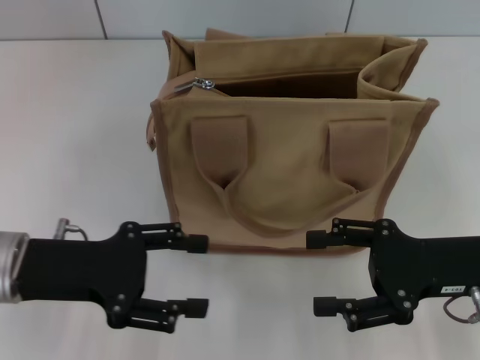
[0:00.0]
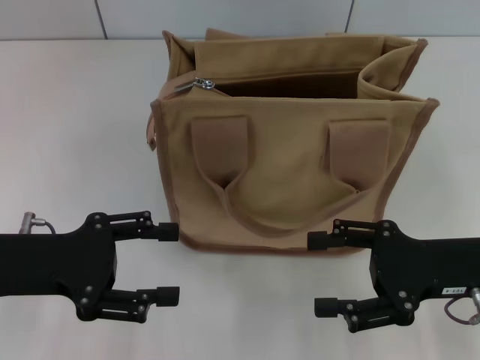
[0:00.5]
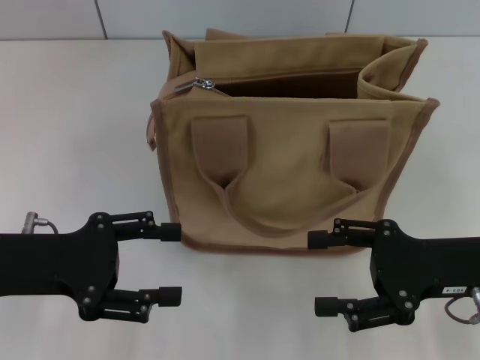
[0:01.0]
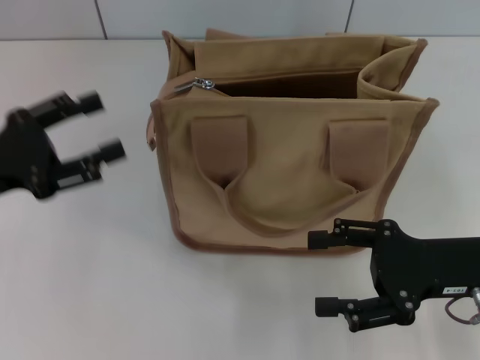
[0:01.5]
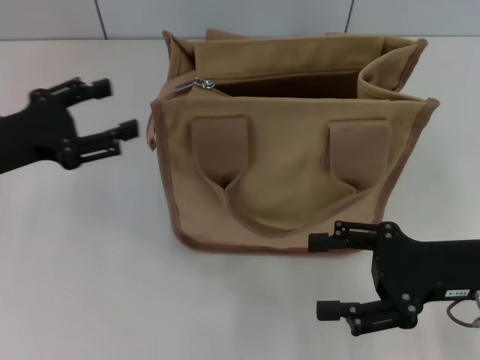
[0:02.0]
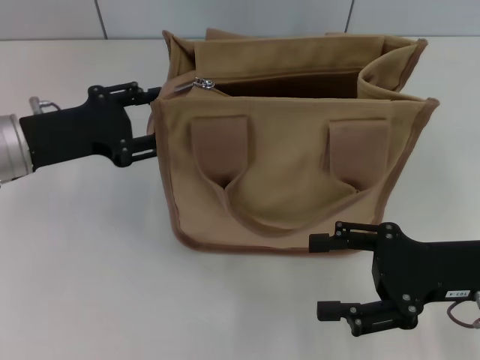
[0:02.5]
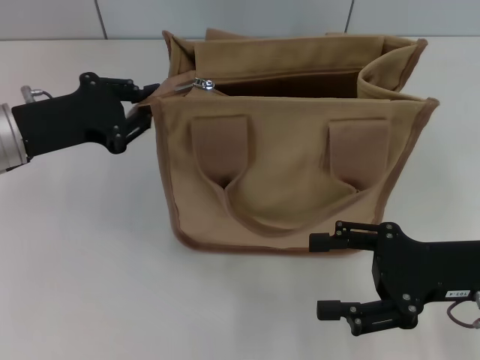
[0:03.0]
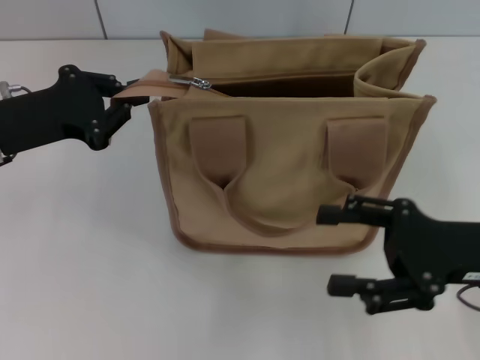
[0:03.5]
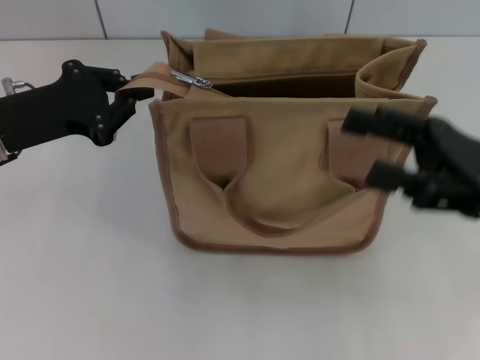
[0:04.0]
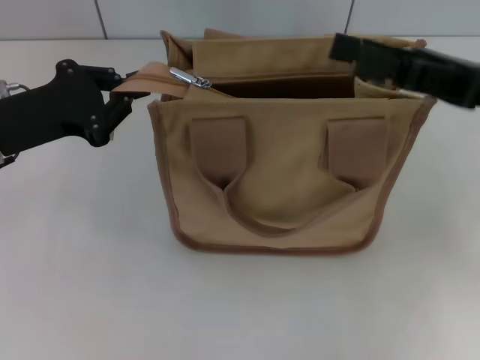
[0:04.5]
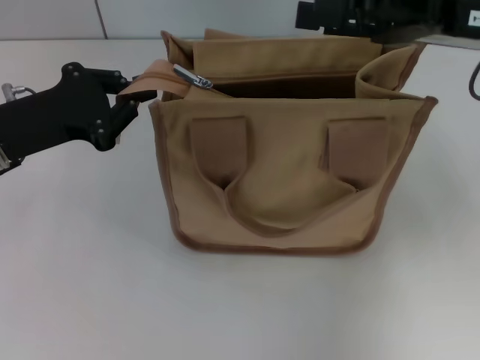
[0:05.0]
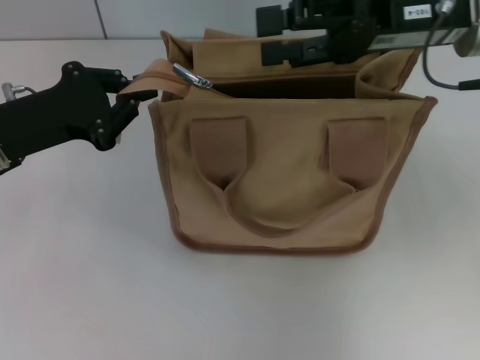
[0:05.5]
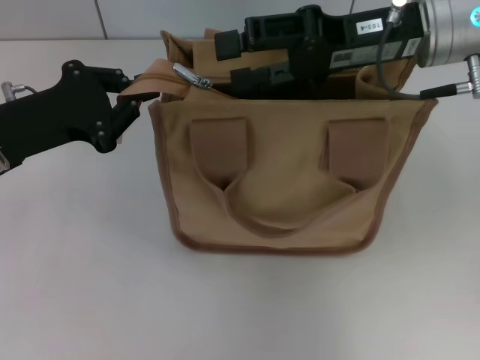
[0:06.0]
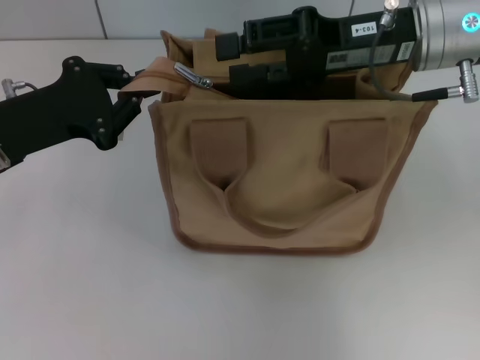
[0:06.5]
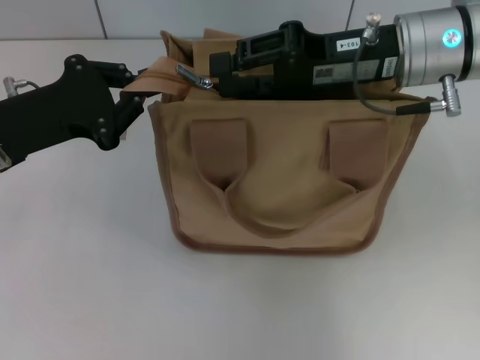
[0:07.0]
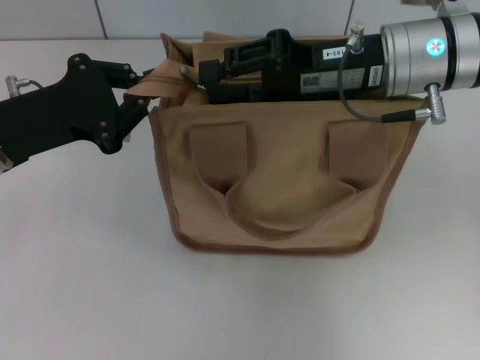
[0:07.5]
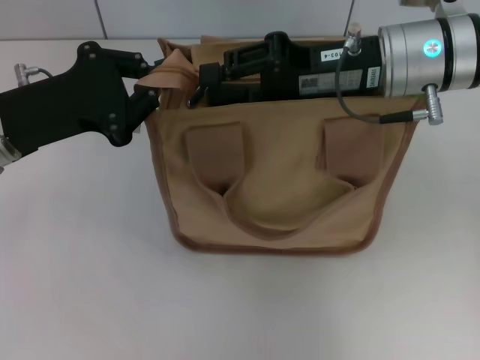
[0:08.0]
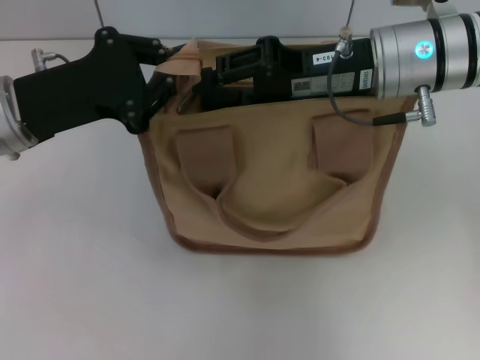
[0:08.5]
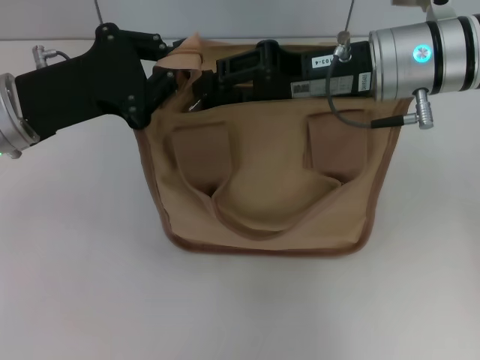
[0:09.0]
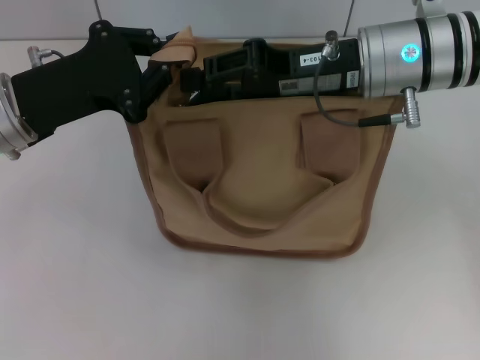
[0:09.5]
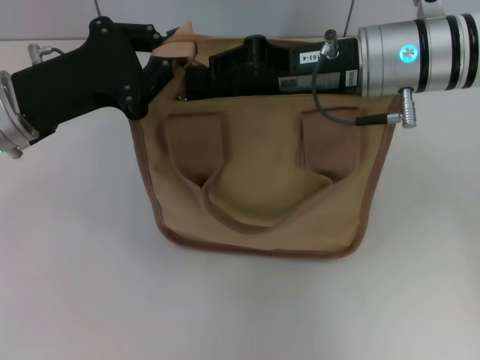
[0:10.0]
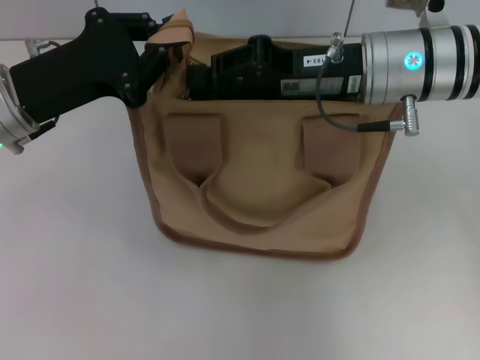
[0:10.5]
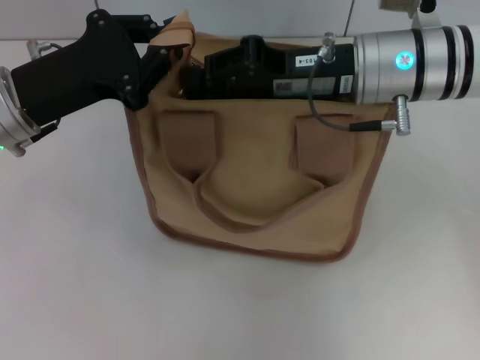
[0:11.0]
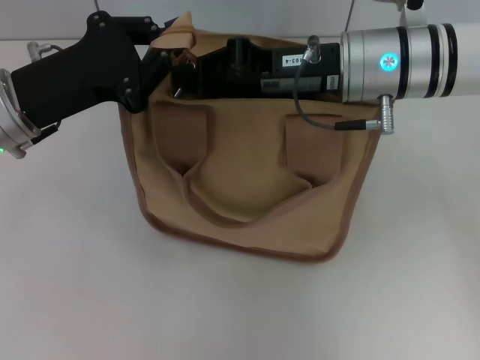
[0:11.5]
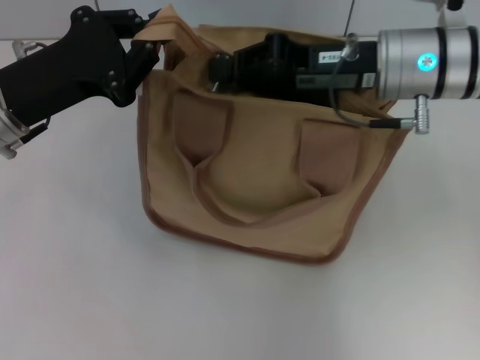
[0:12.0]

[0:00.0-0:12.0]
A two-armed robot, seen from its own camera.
0.0 to 2.0 s: The left gripper heads forward and to the left, covering approximately 10 cm.
2.0 to 4.0 s: The right gripper moves upward, approximately 5 cm, while the left gripper closes its fingers.
4.0 to 6.0 s: The right gripper is displaced forward, to the left and upward by about 15 cm.
6.0 to 8.0 s: The right gripper closes.
8.0 to 12.0 s: The grippers stay close to where they were, moving slightly.

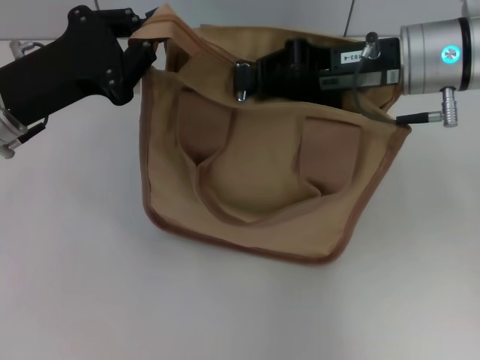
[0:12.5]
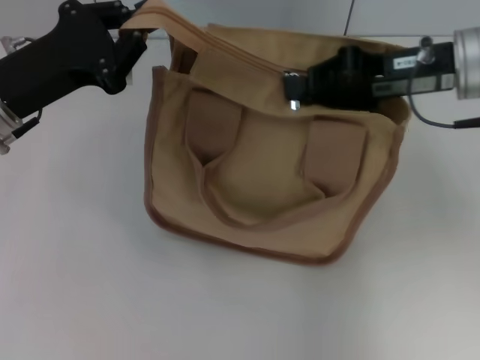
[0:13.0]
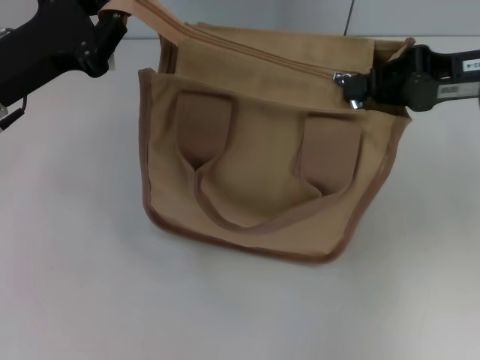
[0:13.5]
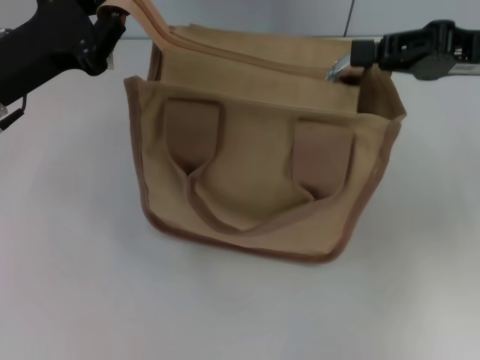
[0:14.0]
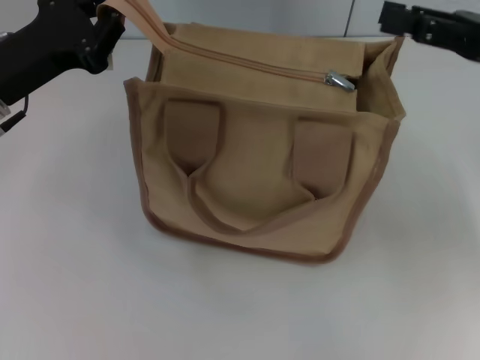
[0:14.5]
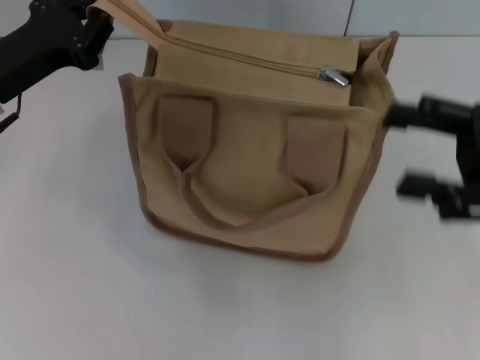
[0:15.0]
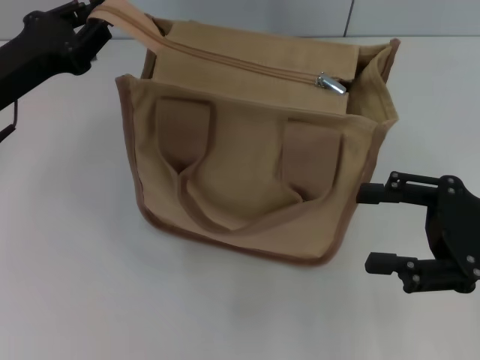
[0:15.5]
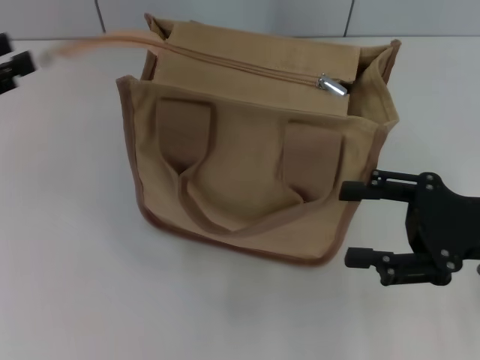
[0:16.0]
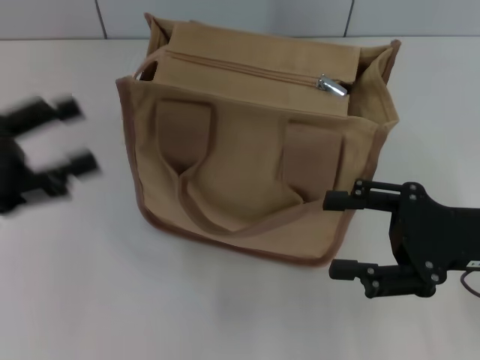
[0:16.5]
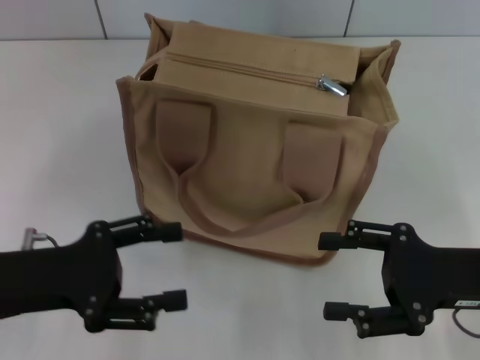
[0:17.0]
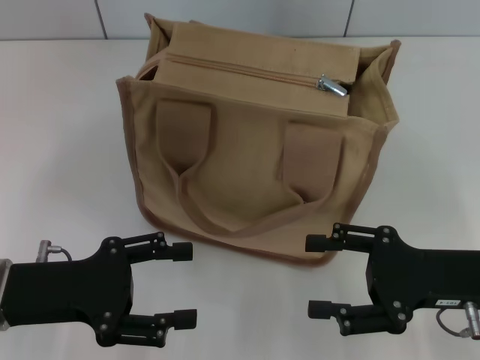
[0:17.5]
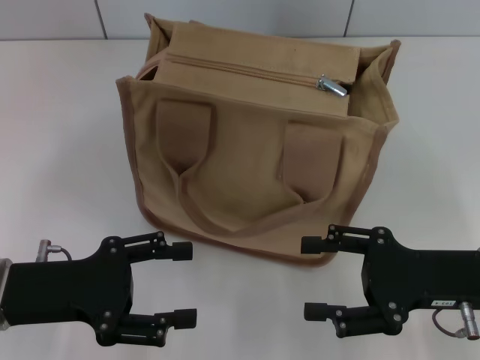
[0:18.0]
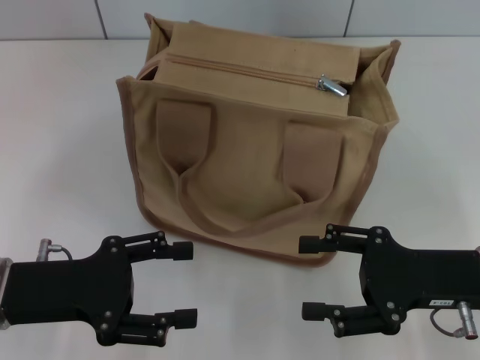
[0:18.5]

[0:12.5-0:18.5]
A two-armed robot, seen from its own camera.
Step, 14.5 to 16.0 s: Grab the zipper with your left hand.
12.5 to 14.5 s: The right gripper moves to the right, about 10 cm, and opens.
14.5 to 16.5 s: The right gripper goes some 10 cm downward and backward, and opens, while the left gripper goes some 10 cm backward and to the left, and opens up.
16.5 to 18.5 s: The left gripper moves to the right and downward, about 10 cm.

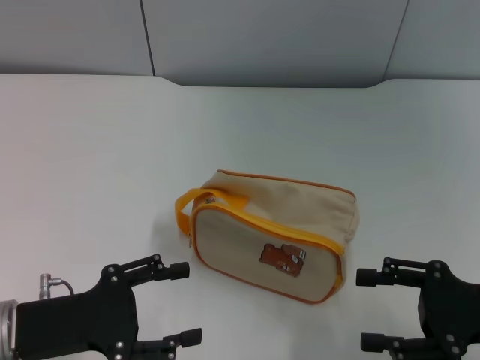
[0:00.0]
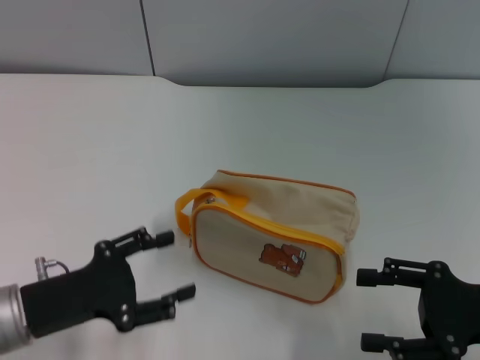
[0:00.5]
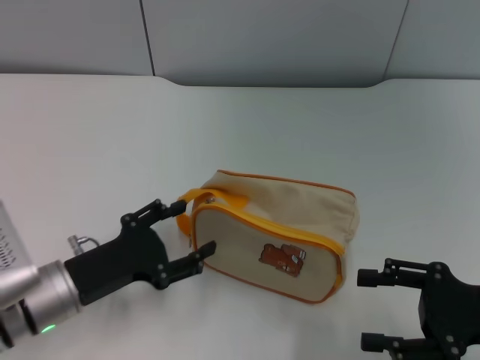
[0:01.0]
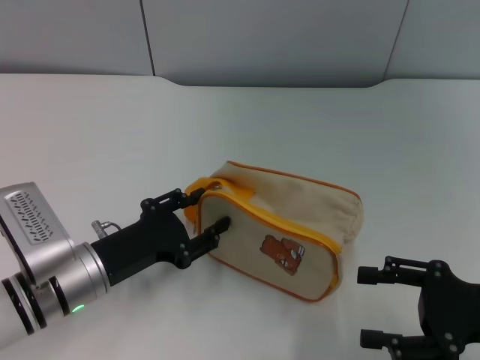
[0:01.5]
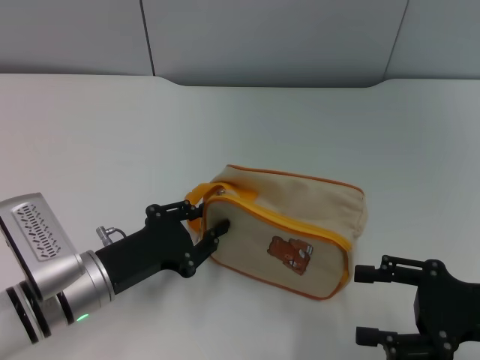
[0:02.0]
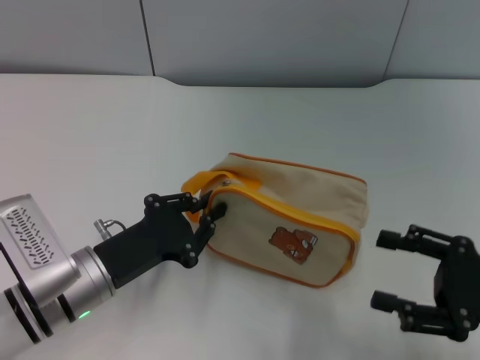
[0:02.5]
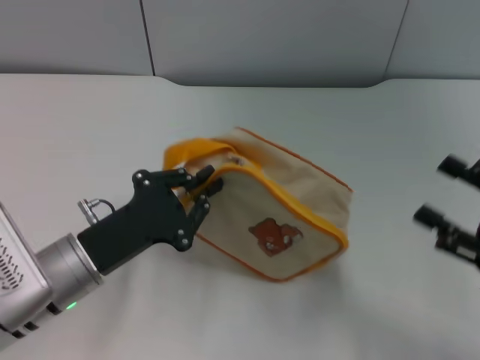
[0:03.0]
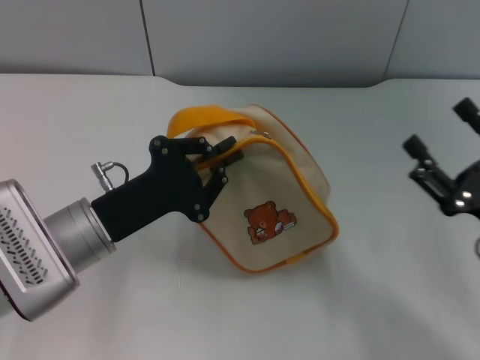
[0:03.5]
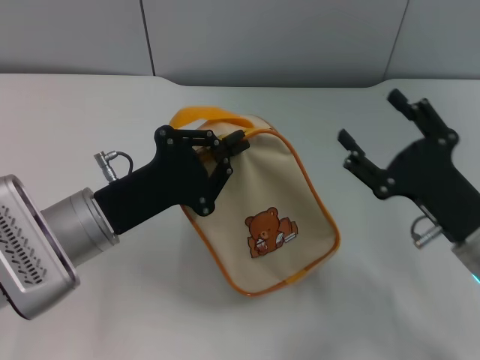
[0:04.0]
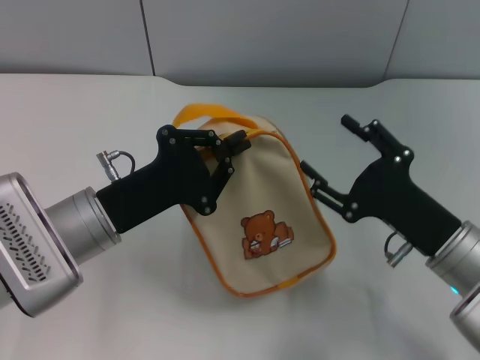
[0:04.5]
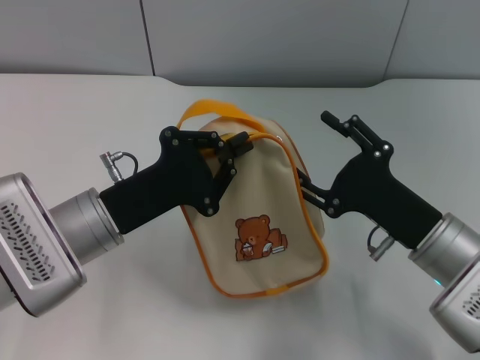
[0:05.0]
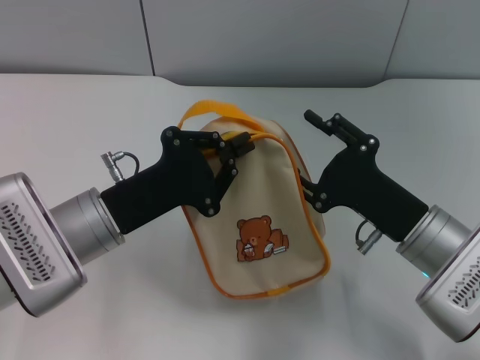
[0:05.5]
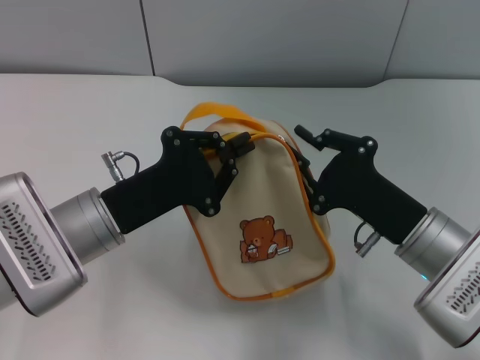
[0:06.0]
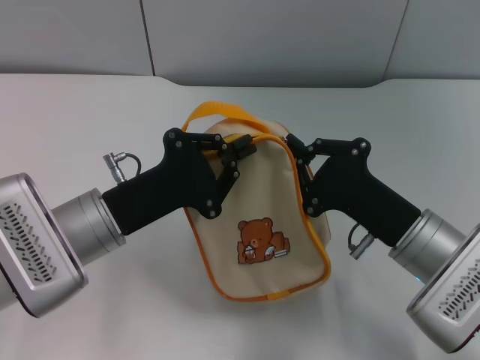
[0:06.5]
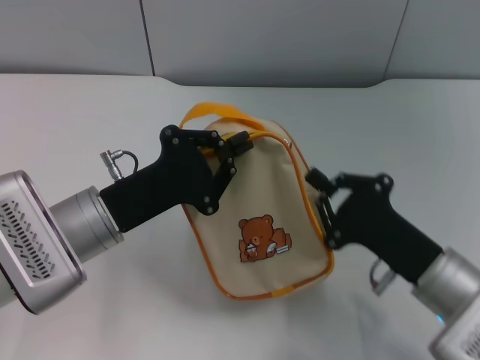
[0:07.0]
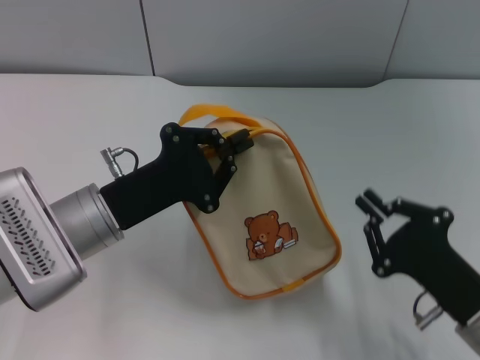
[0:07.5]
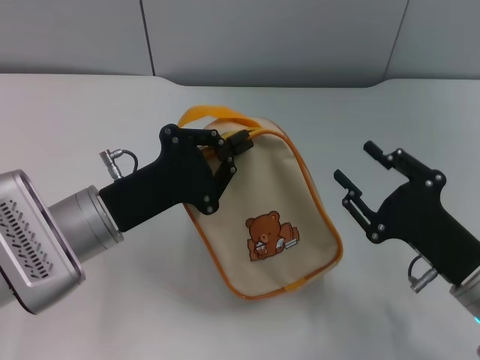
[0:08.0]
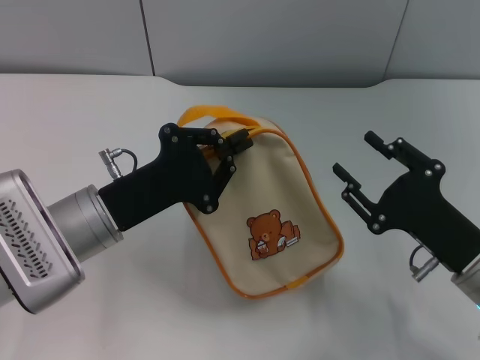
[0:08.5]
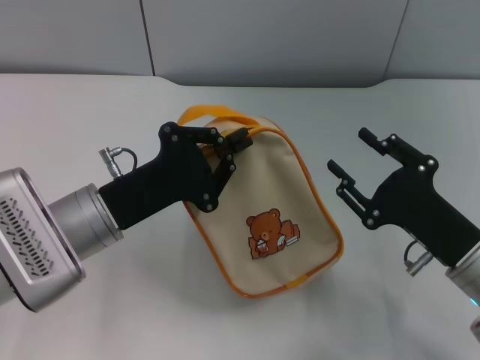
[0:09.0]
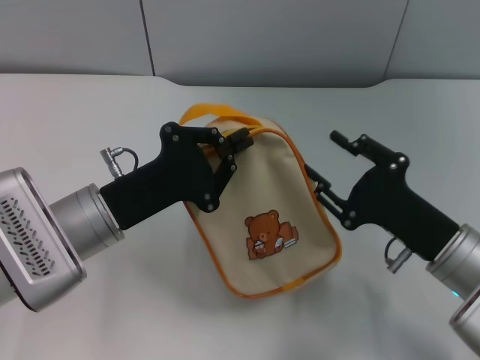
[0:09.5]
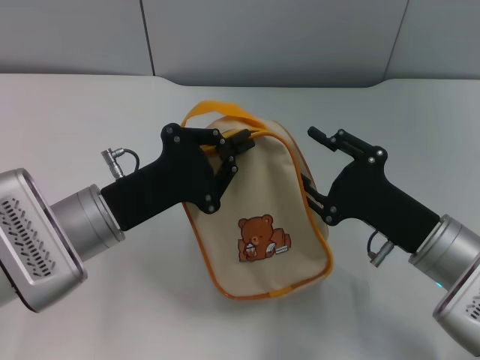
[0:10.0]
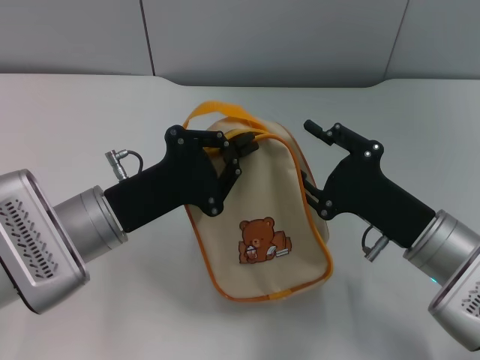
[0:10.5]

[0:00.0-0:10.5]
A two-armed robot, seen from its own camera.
Step, 0.0 to 3.0 s: Pick up the bag with left gripper.
0.0 to 2.0 s: The left gripper shifts about 5 cm to the right, and closes its fingers.
2.0 to 4.0 s: The left gripper heads upward, covering roughly 5 cm, and closes. The right gripper shifts about 5 cm to the left.
4.0 to 6.5 s: The right gripper closes up.
6.5 to 8.5 s: The right gripper shifts approximately 5 cm to the right, and opens up.
8.5 to 10.5 s: The grippers make only small movements.
